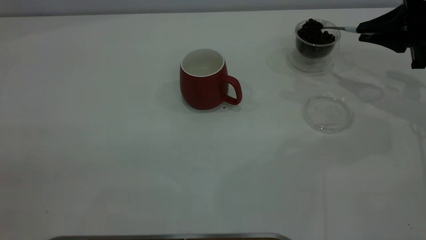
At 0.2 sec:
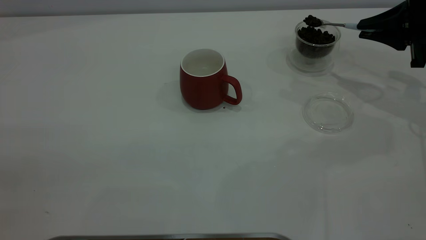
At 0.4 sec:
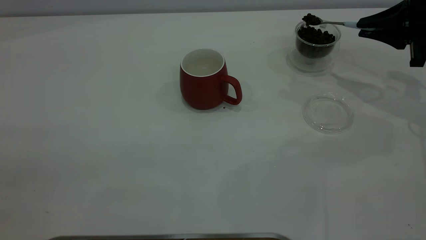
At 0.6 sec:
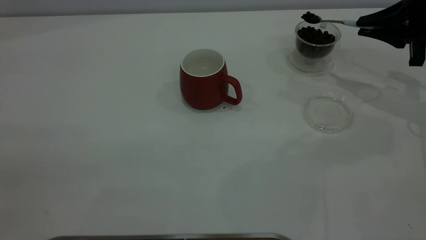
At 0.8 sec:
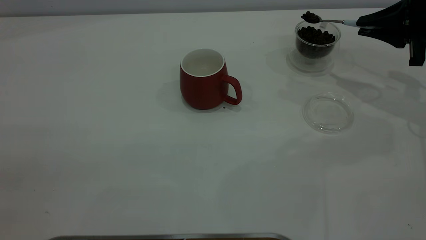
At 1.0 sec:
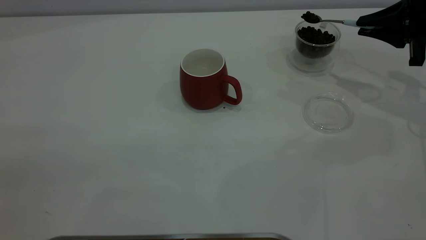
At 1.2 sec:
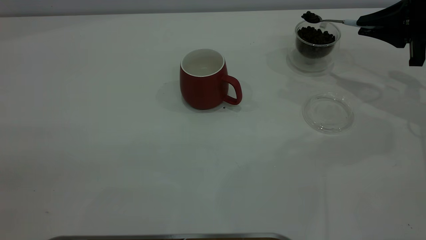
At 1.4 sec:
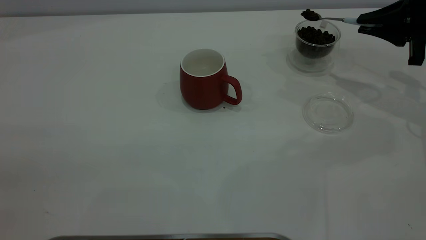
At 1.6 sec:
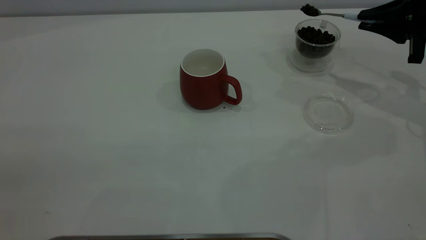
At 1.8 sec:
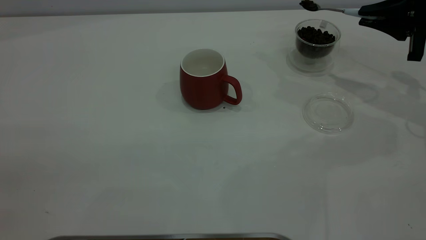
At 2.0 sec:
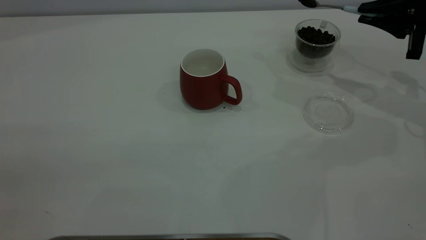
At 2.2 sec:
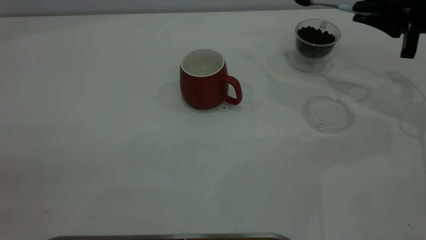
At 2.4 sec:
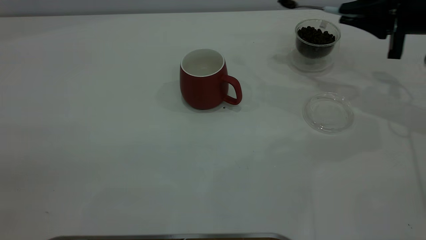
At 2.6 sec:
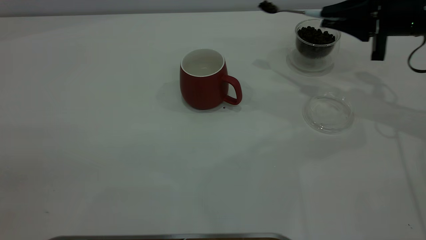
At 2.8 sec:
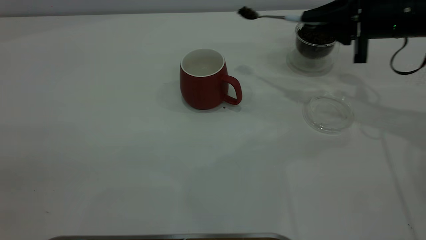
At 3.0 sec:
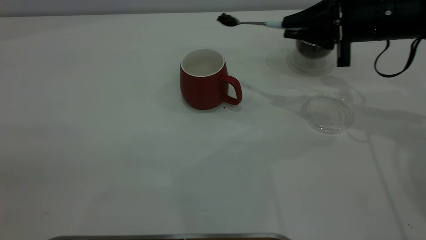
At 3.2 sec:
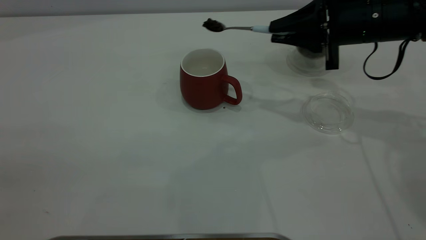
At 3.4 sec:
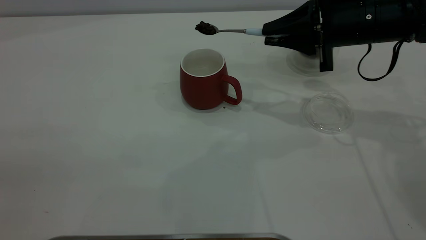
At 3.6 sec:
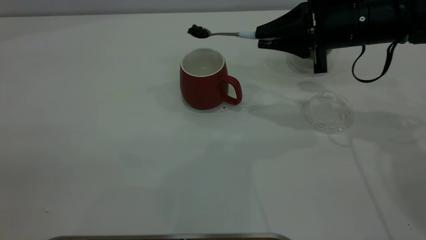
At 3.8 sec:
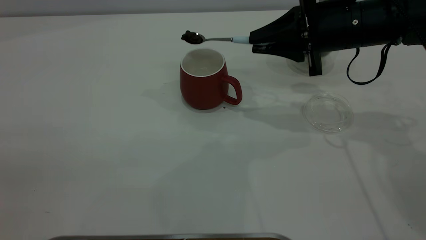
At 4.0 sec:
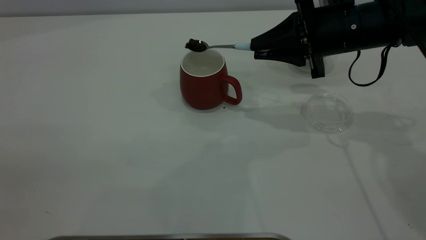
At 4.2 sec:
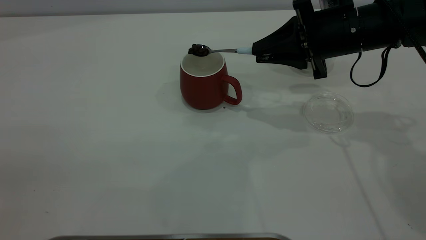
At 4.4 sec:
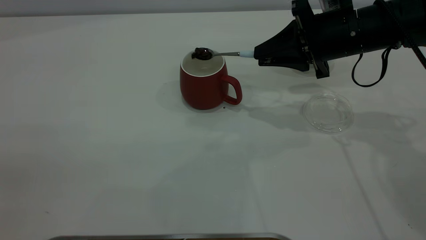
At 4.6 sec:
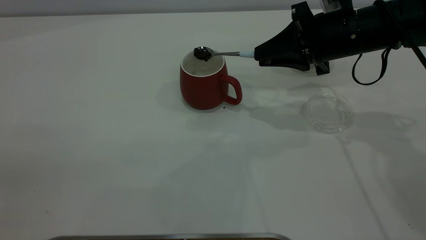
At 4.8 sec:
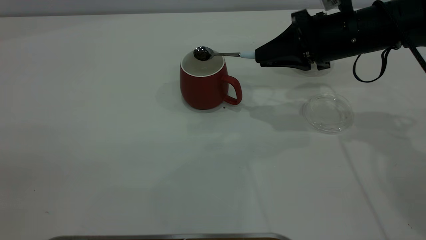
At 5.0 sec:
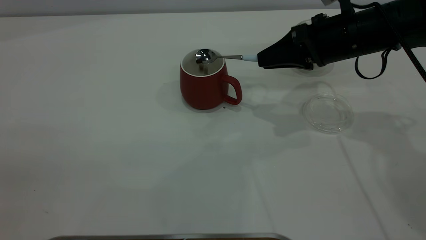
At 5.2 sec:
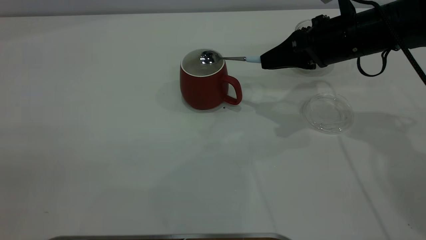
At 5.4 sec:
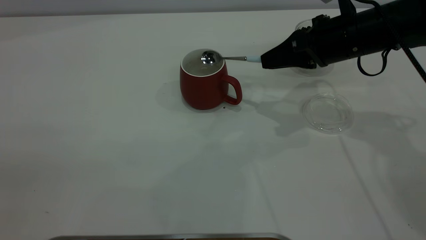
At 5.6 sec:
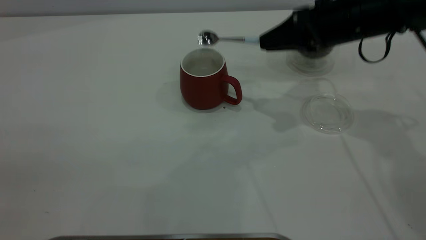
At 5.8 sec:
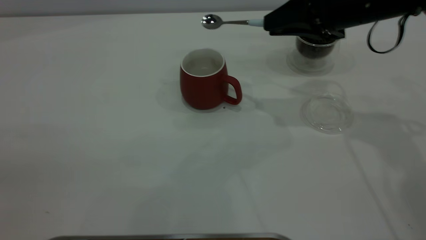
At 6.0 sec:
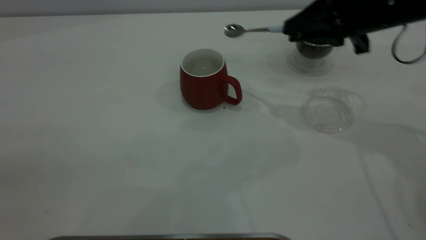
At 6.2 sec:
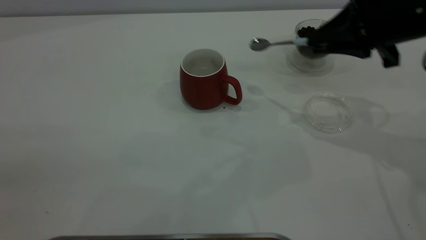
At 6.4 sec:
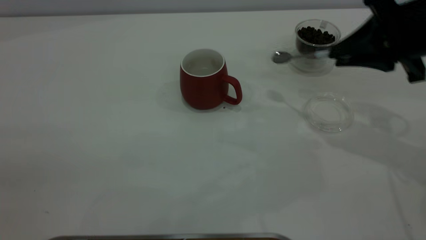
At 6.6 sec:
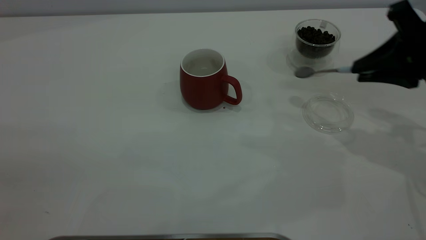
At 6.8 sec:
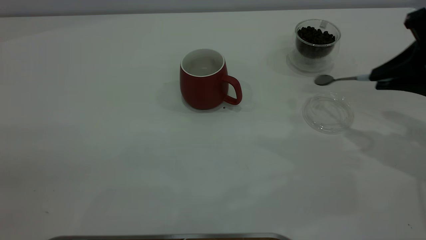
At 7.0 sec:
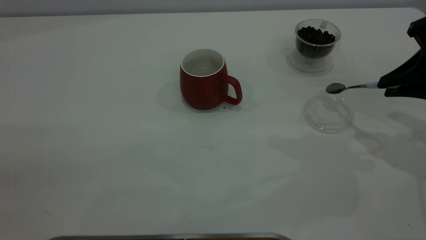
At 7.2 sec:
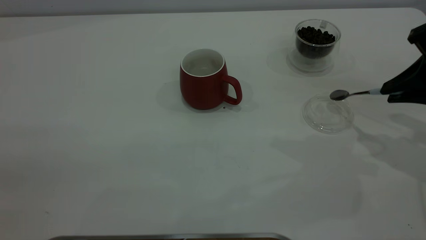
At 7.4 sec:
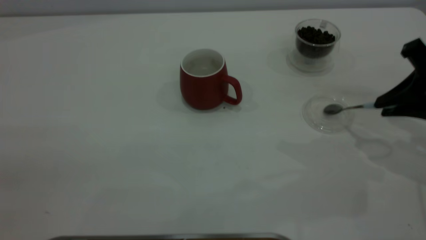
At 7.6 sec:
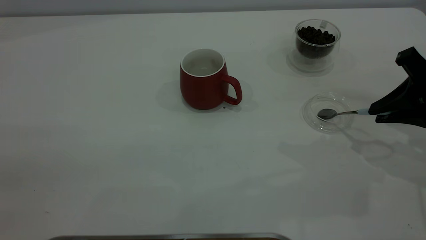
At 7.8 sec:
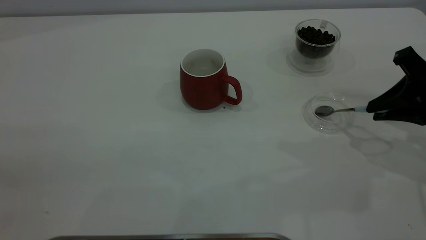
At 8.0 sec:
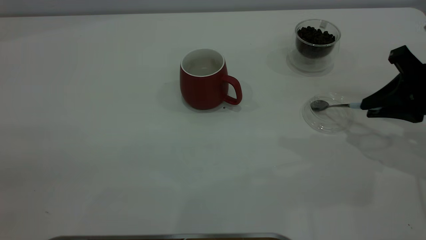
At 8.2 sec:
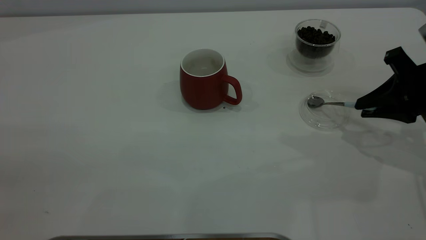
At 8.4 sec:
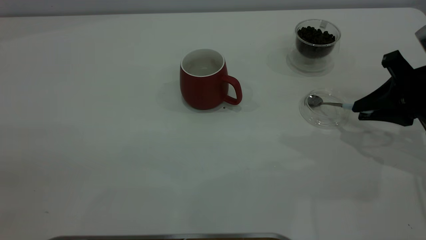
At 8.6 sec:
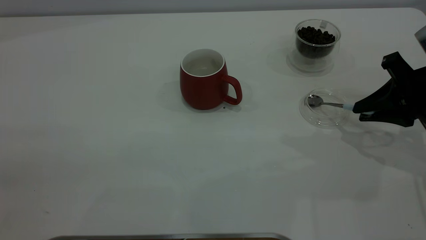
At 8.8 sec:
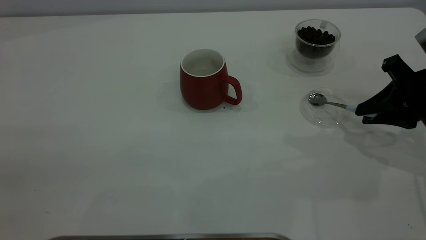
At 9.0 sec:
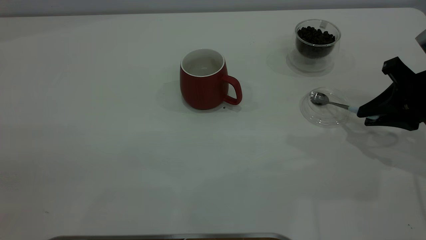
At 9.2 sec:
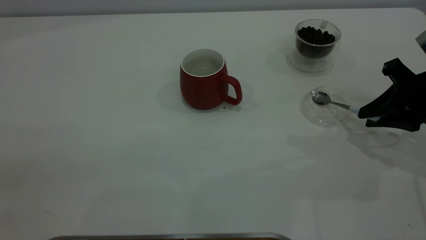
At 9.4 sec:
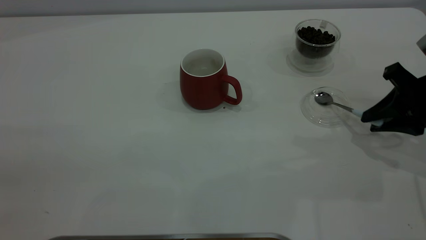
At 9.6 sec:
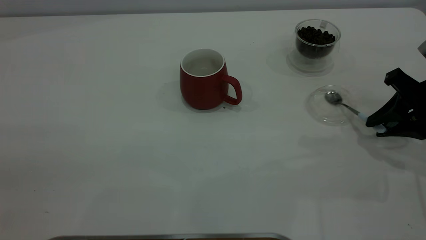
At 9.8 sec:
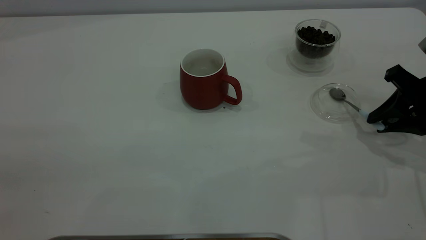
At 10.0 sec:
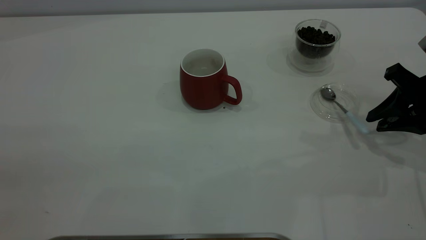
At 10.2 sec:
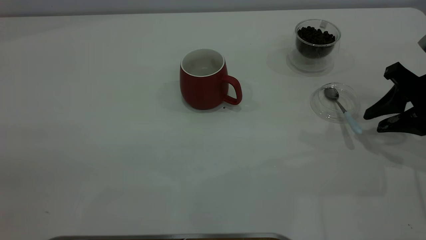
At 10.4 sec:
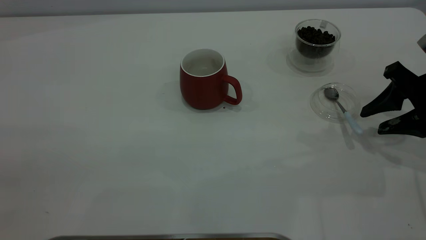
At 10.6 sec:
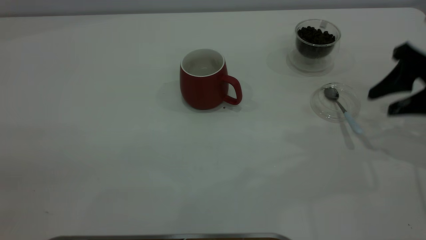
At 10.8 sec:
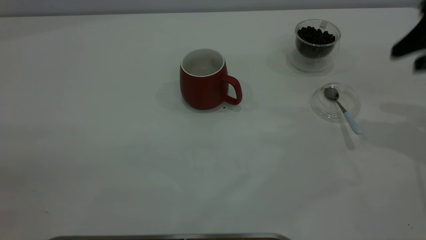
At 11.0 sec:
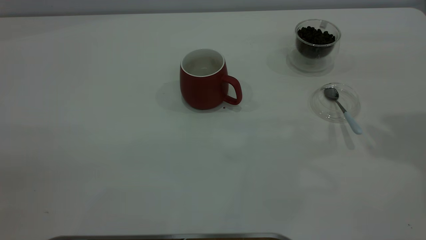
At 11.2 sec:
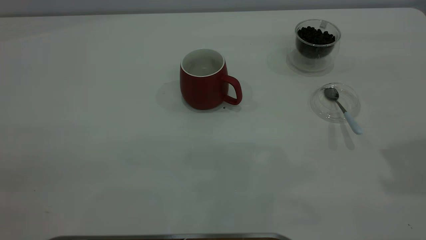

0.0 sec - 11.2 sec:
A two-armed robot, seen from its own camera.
Task of the whole recording: the left gripper place the red cup in the center of the table, the right gripper take the blue spoon from the cup lid and scoop out the coffee beans from the coffee cup and put them into the red cup, the right gripper put the spoon back into the cup lid.
Step, 0.0 sec - 5.4 sec: Scoop a spoonful of beans into the cup.
Step, 5.6 sec - 10.2 sec: Place the spoon back in its original place.
0.0 sec - 1.6 sec: The grippers stay close to where they were, moving slightly.
1.6 sec - 3.2 sec: The right gripper is displaced to the left by approximately 15 cm.
4.8 sec - 6.4 sec: The right gripper heads to the right and backward, covering roughly 10 cm.
6.4 sec - 8.0 sec: The right gripper heads downward, covering some 5 cm.
8.0 sec - 9.6 sec: The grippers make only small movements.
9.6 sec - 11.2 sec: The right gripper goes roughly 30 cm upward, and opens its fingers.

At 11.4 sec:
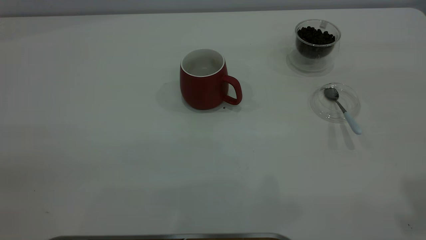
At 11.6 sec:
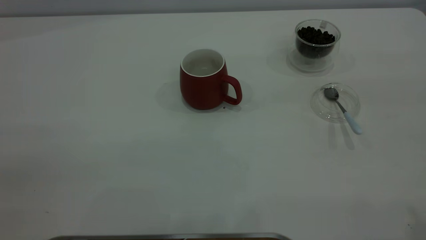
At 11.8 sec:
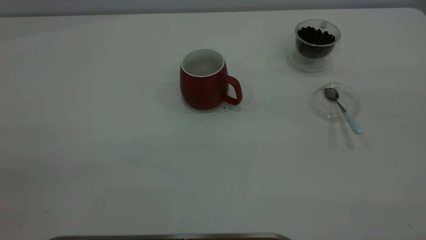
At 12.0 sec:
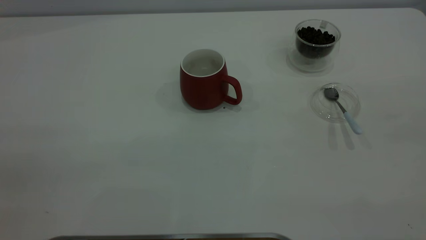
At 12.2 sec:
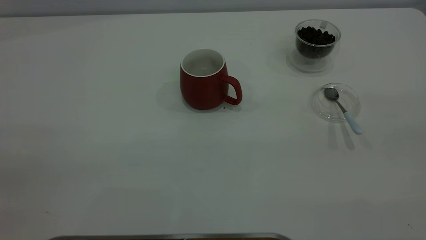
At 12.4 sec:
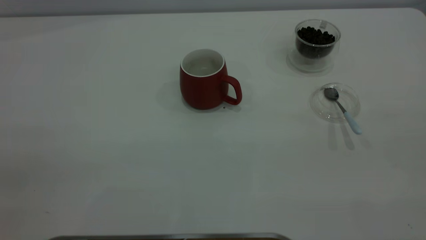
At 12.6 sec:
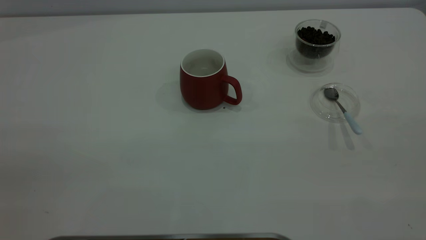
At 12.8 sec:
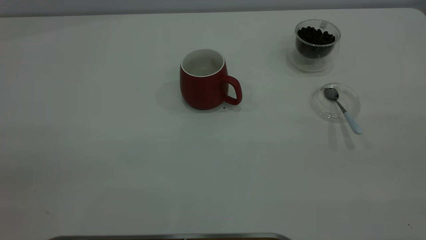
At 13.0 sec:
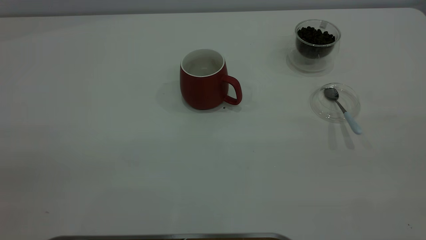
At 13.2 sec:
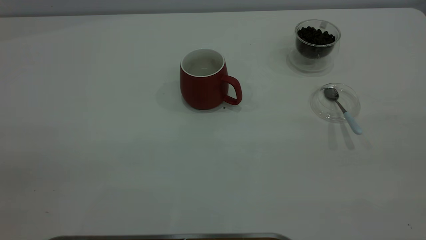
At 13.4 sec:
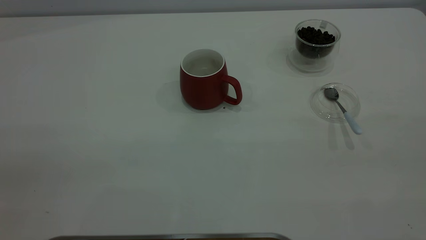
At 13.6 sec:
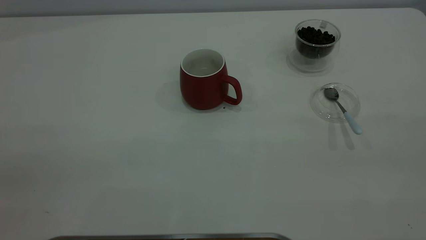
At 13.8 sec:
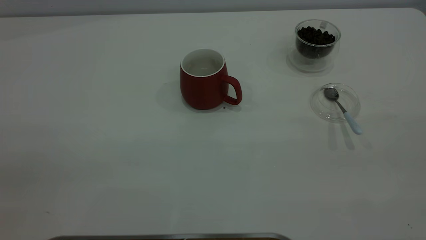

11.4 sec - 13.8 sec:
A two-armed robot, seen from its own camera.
Task of the whole recording: the left gripper place the red cup in the center of the table, the right gripper take the blue spoon from the cup lid and scoop out the coffee beans from the coffee cup and put them into the red cup, the right gripper put the spoon back into the cup lid.
12.6 sec - 13.8 sec: Neither gripper changes place.
